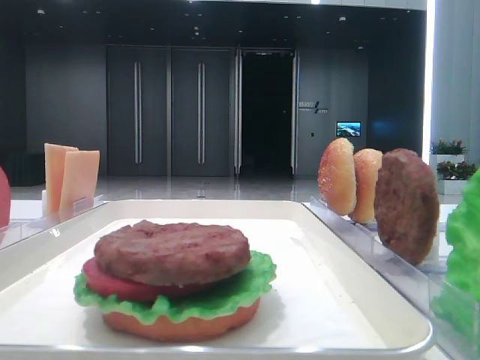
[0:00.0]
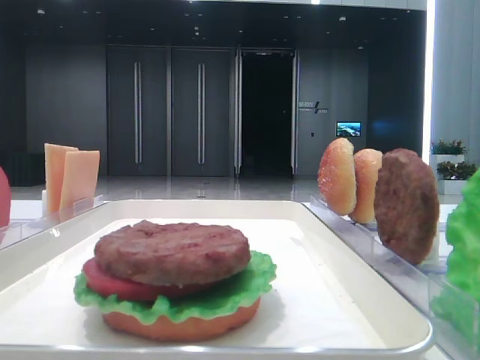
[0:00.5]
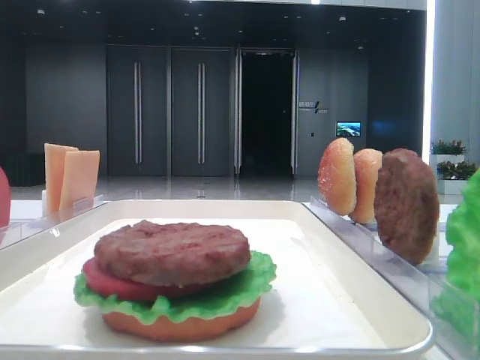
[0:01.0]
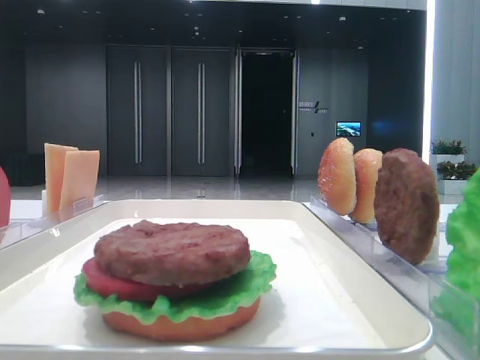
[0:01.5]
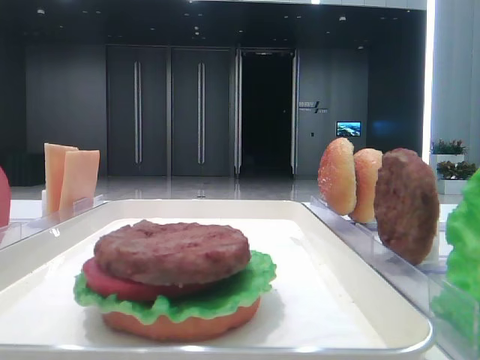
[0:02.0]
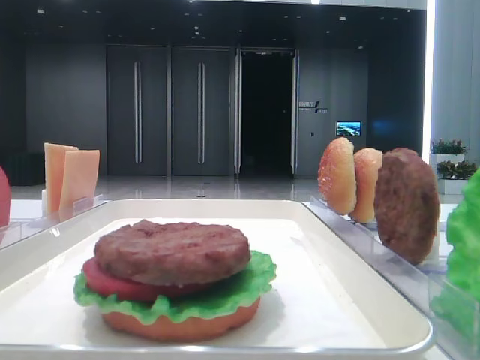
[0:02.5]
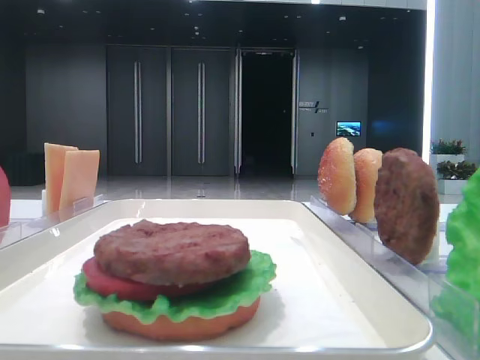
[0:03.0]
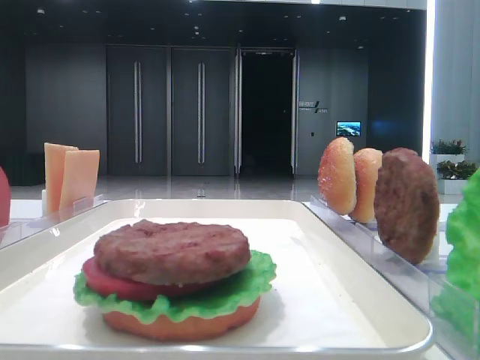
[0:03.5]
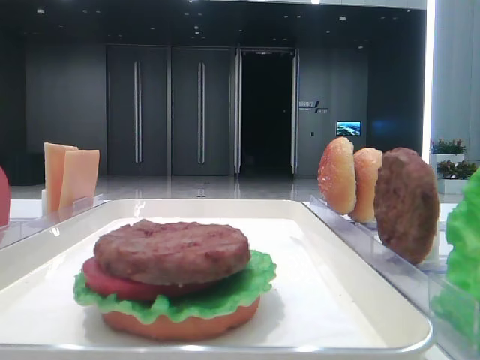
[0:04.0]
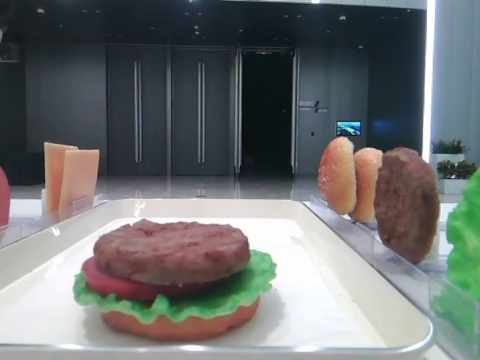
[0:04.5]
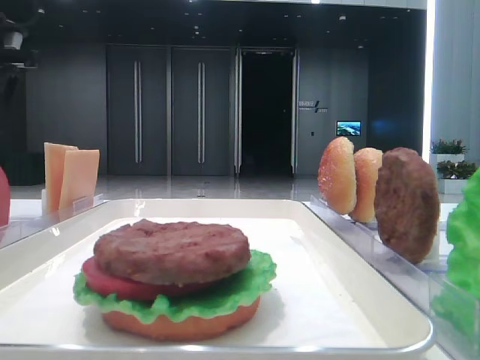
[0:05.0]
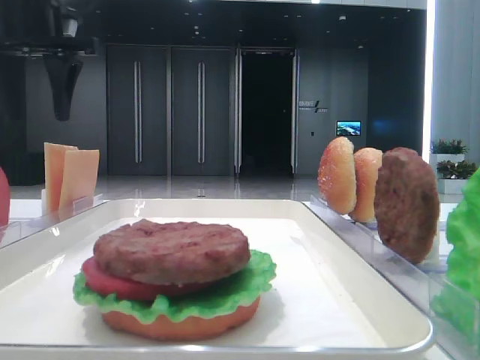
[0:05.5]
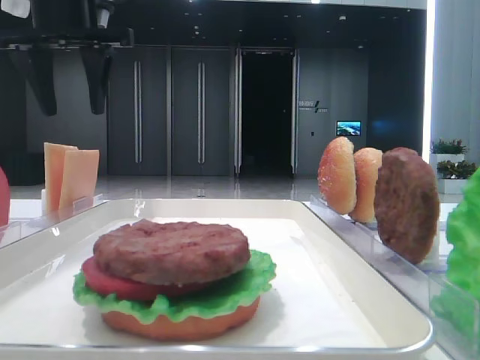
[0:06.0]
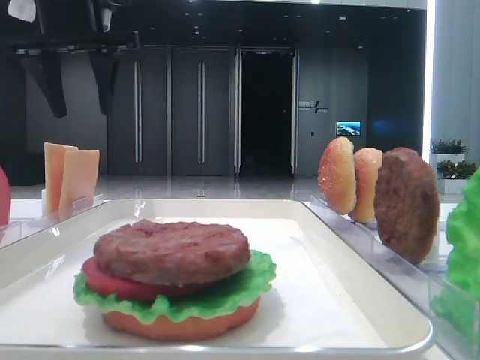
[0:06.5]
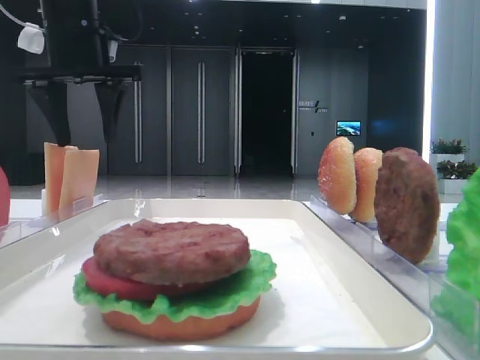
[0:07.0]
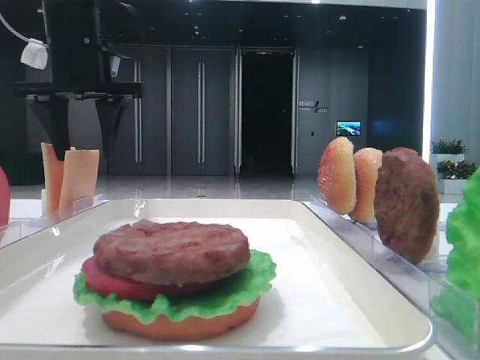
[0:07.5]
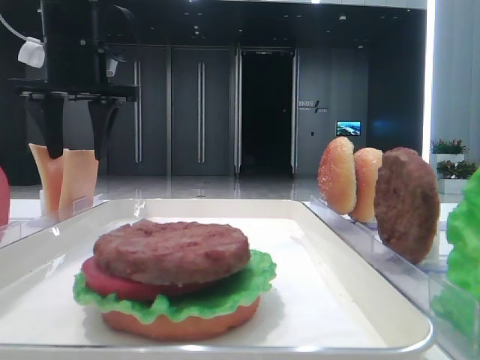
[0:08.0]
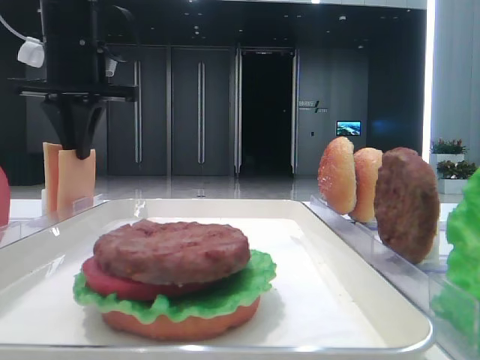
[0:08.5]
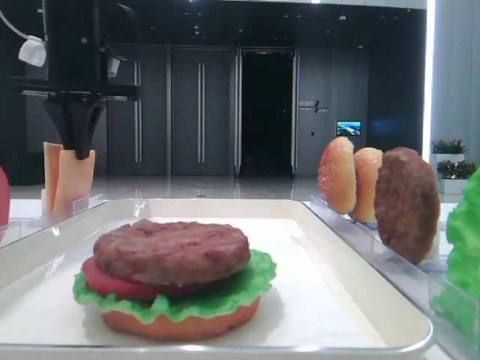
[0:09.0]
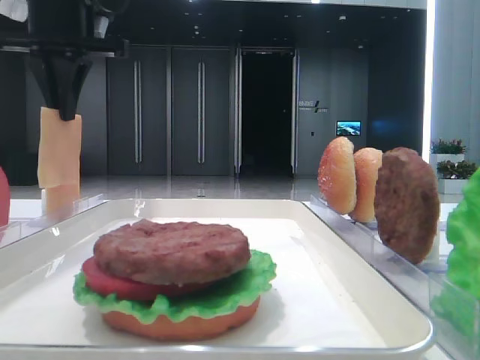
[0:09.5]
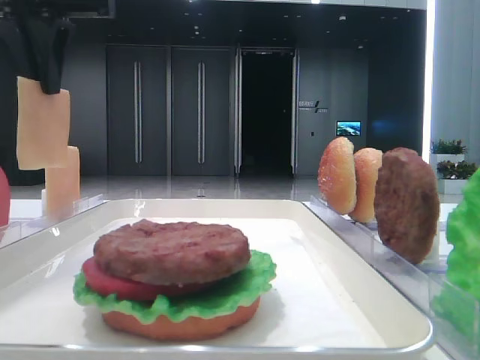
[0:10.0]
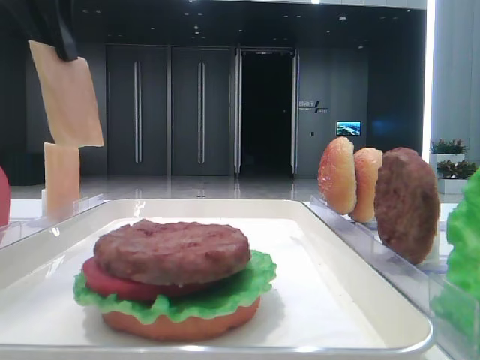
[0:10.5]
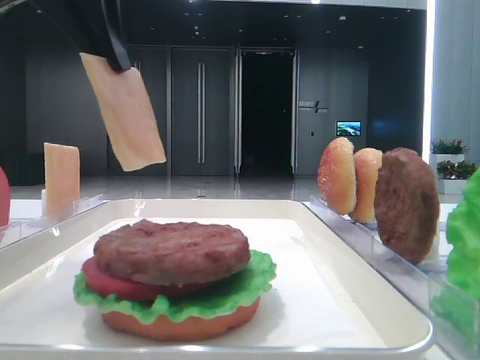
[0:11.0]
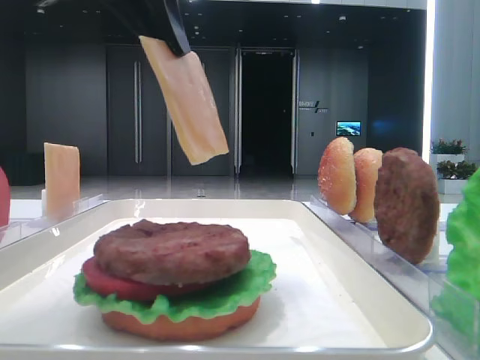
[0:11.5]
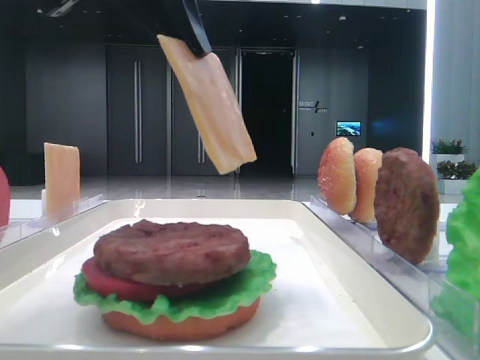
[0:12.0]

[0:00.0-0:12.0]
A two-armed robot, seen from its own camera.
Step, 0:00.0 to 0:08.5: Pick up the cheese slice with the left hand.
0:04.0 to 0:06.0: The left gripper shifts about 15 cm to the right.
0:06.0 to 0:08.0: The left gripper moves about 5 cm.
0:08.0 to 0:10.0: The left gripper goes approximately 10 cm backward and upward, and closes.
0:10.0 to 0:12.0: The left gripper goes roughly 15 cm backward and to the right.

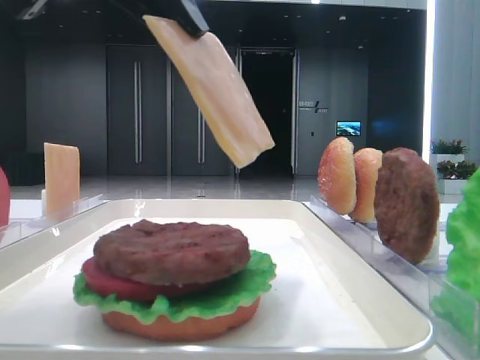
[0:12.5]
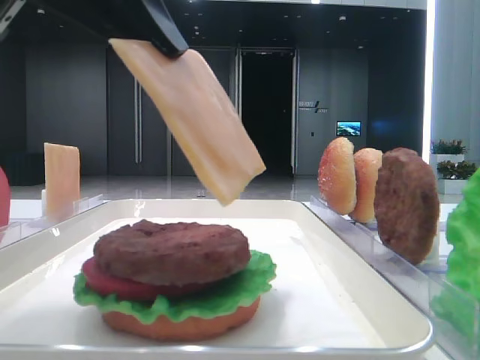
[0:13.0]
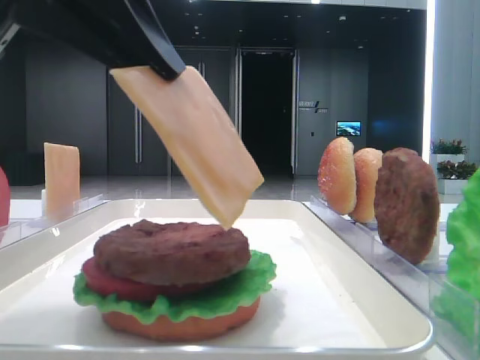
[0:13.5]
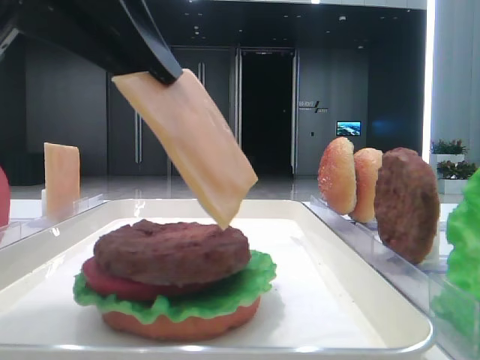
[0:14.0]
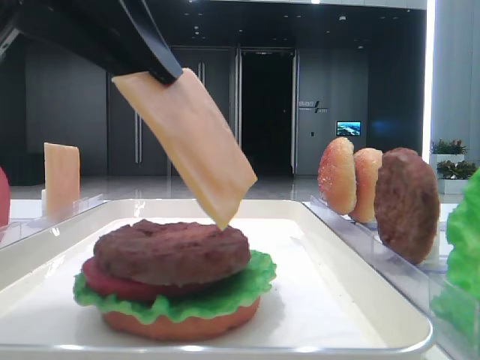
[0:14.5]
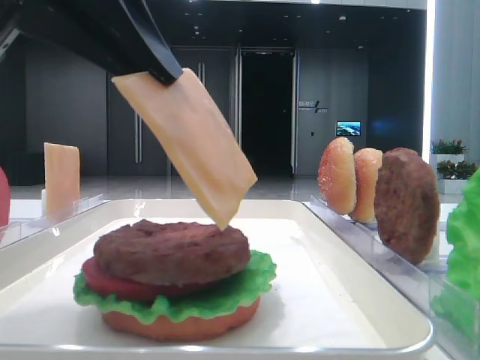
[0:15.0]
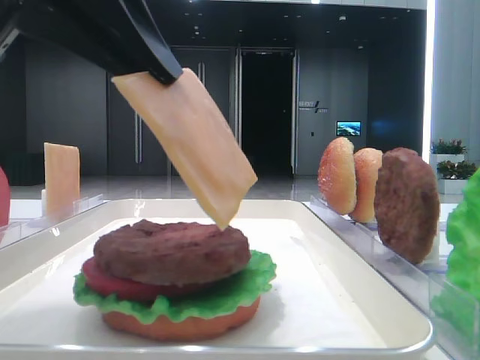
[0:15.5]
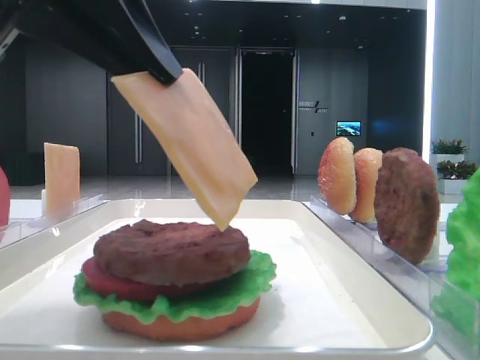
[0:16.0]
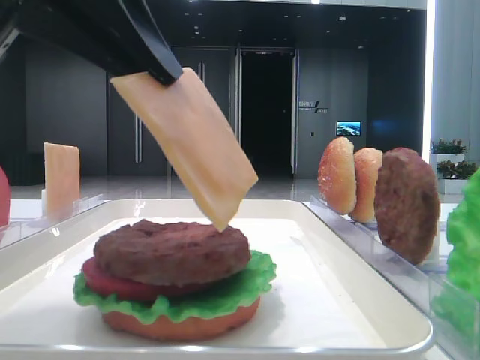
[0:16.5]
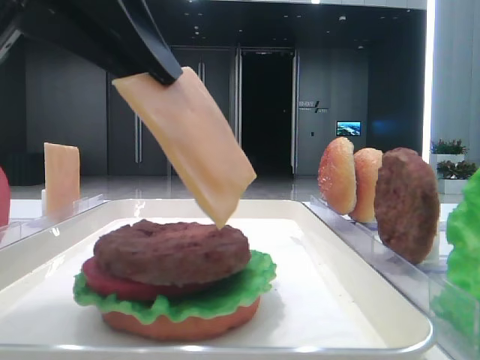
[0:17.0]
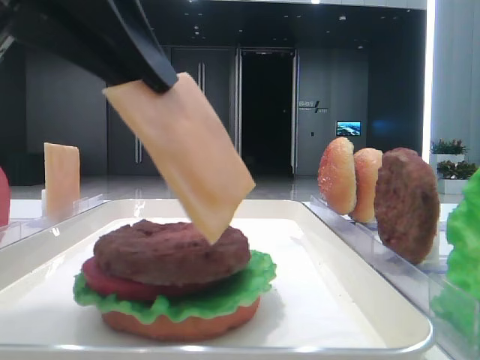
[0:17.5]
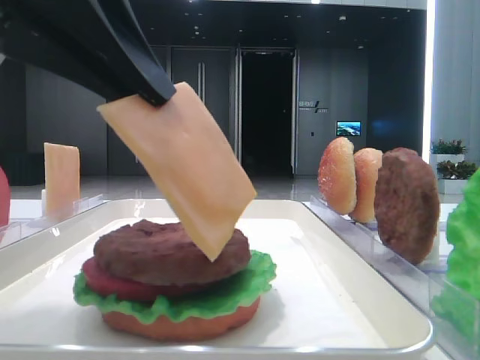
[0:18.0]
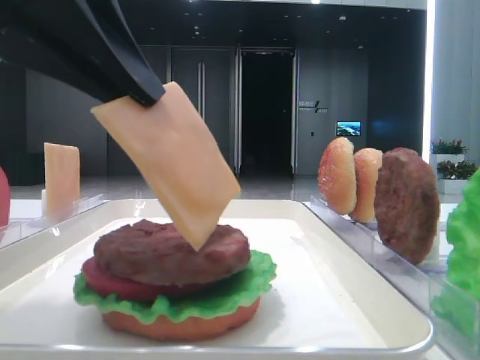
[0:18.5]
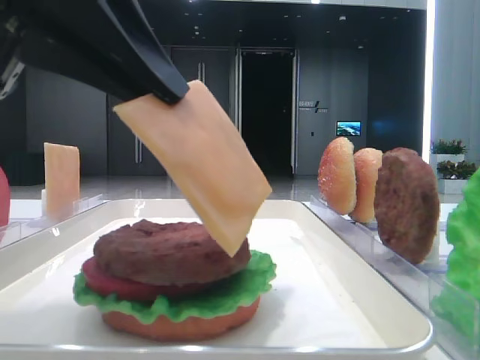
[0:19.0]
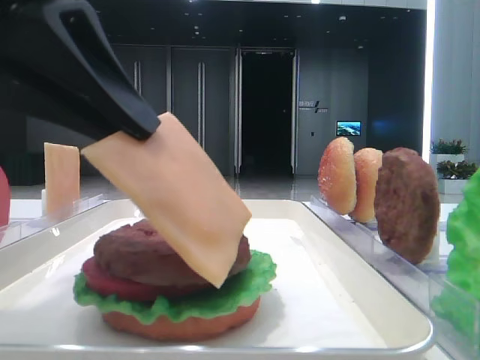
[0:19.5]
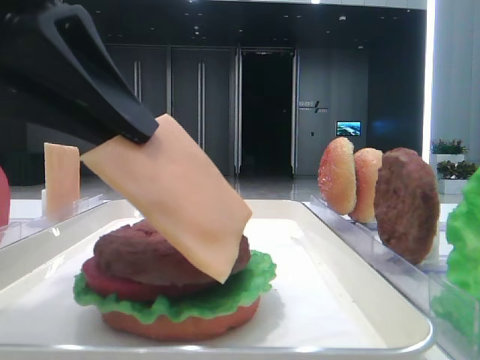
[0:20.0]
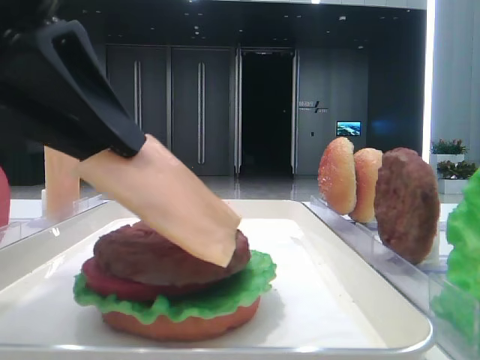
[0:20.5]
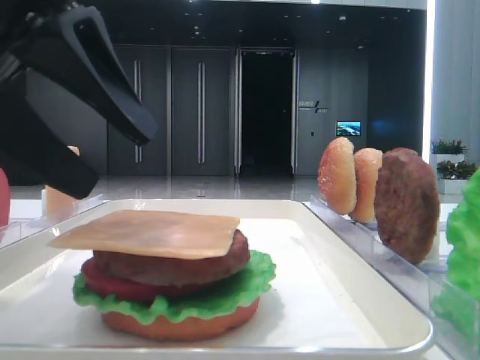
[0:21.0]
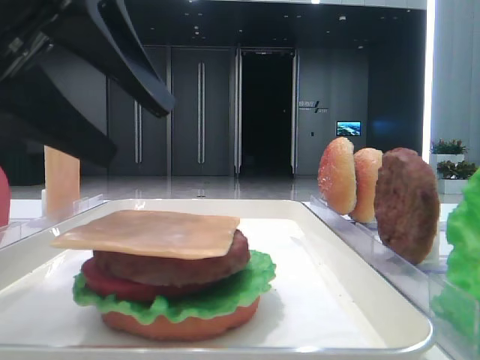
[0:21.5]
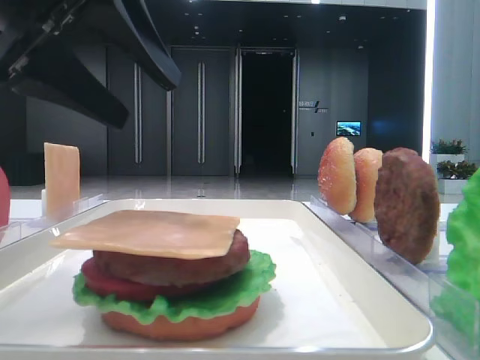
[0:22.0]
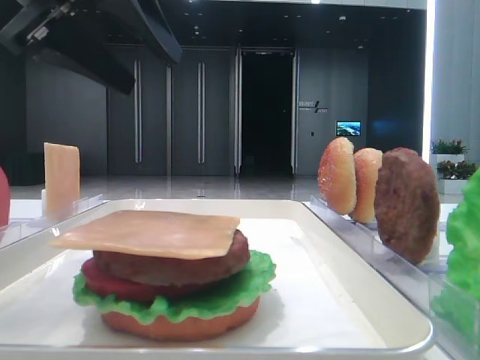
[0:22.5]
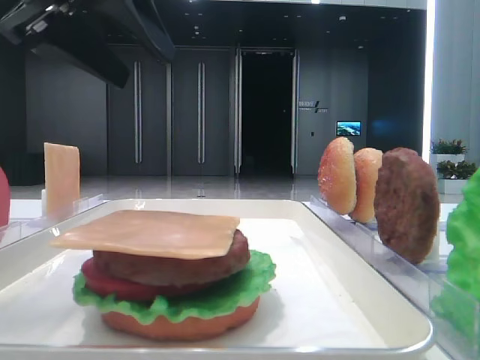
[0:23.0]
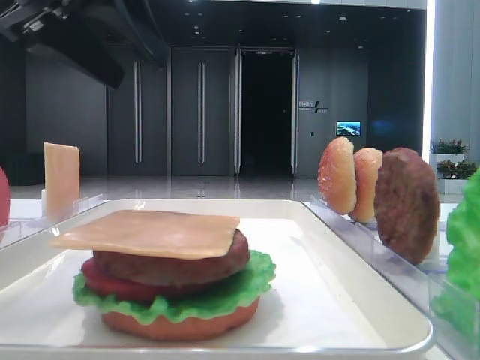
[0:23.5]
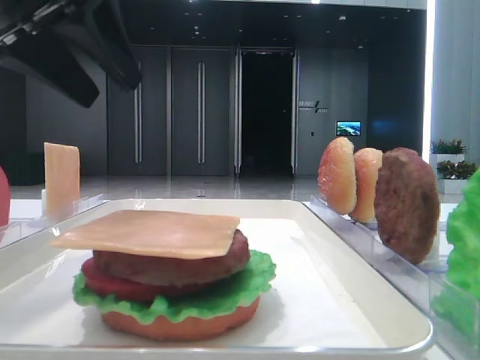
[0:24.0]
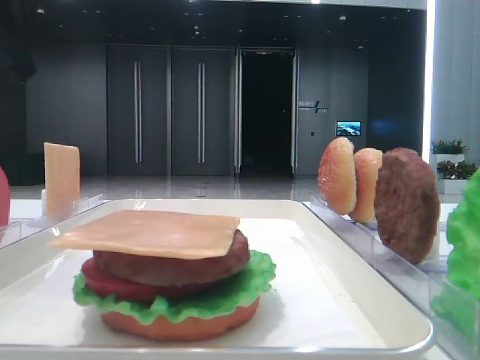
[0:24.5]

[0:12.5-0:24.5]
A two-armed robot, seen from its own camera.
Step, 0:12.5 to 0:20.5: Place the cheese slice on the patty with the left hand.
0:12.5 to 0:14.5: The grippers stay close to where they were, moving slightly.
0:14.5 to 0:16.5: Both grippers stay put.
0:16.5 to 0:20.5: The grippers stay close to where they were, moving slightly.
0:20.5 to 0:22.5: The left gripper moves upward and forward, approximately 10 cm, and opens.
0:22.5 to 0:24.5: The left gripper is displaced to the left by some 10 cm.

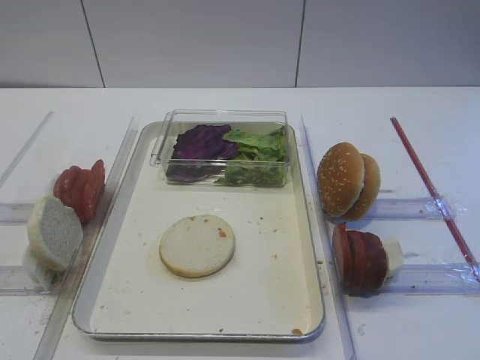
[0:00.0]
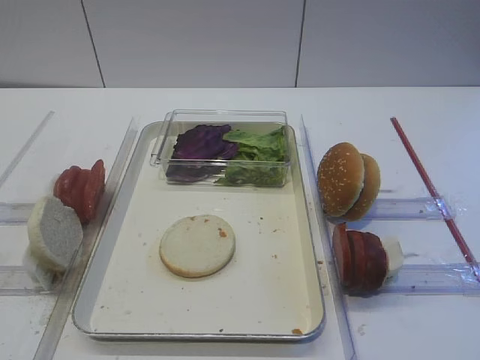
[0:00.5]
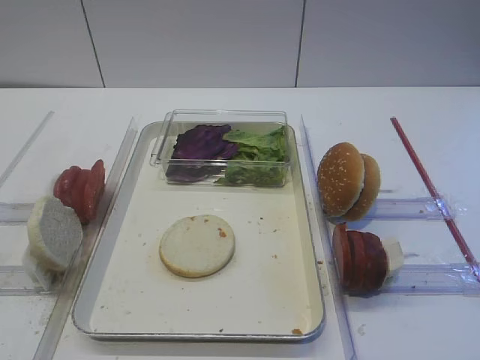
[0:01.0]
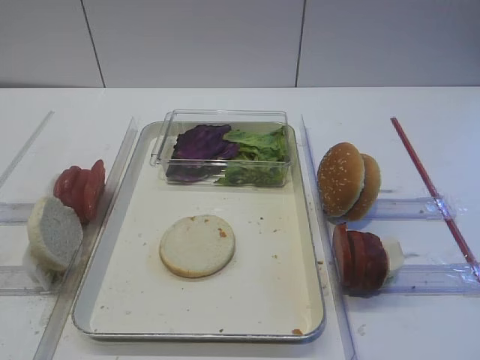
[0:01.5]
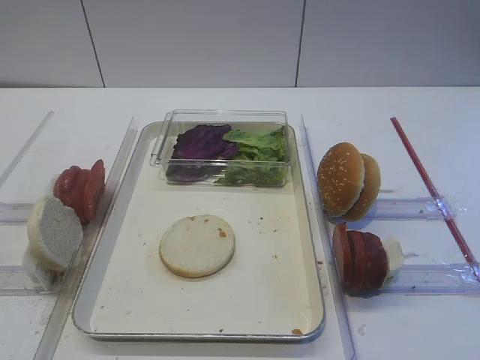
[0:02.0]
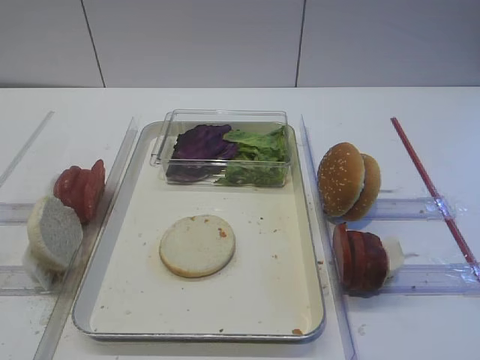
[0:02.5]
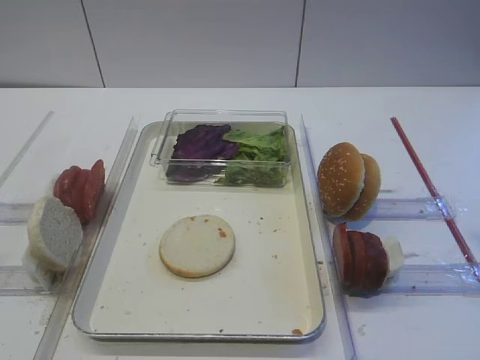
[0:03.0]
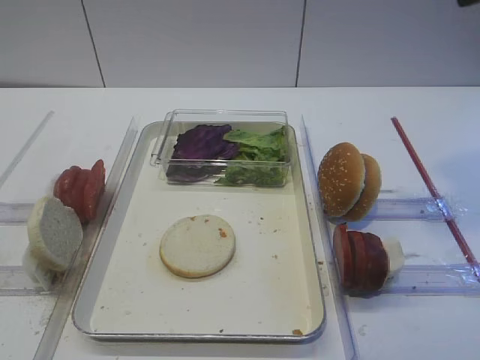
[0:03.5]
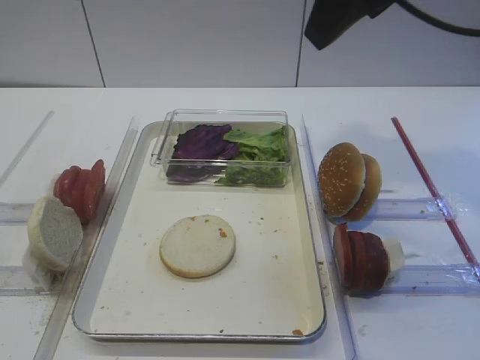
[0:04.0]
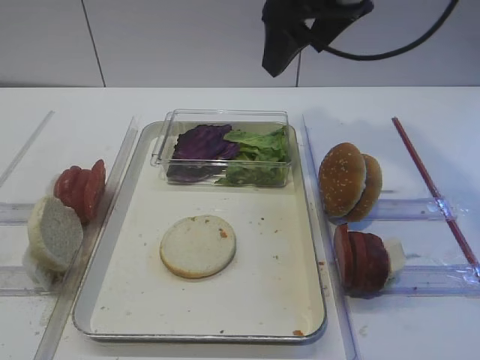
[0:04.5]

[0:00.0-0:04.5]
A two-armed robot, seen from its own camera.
0:02.0 to 0:04.5: The right gripper shifts about 40 cm forward and to the left.
